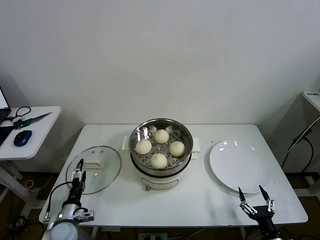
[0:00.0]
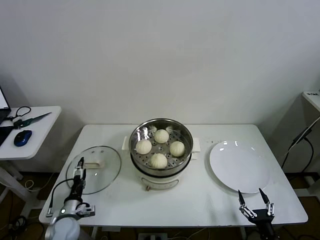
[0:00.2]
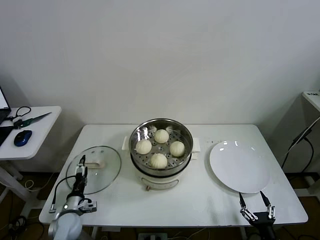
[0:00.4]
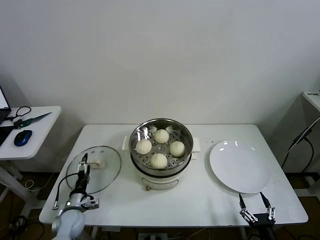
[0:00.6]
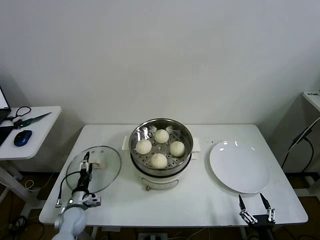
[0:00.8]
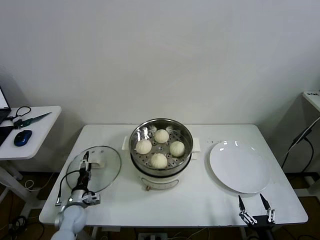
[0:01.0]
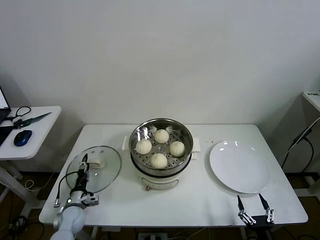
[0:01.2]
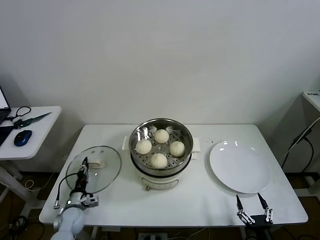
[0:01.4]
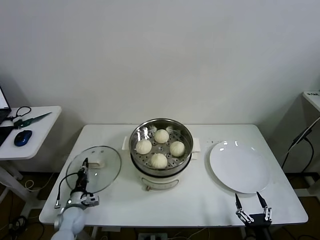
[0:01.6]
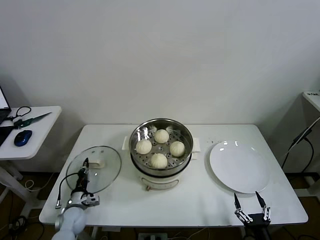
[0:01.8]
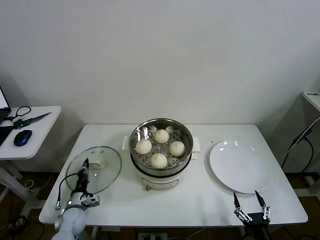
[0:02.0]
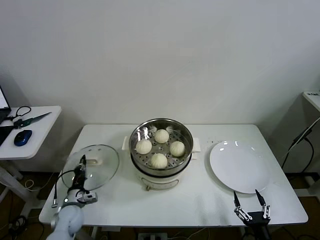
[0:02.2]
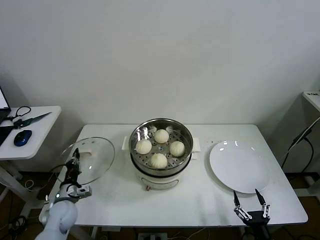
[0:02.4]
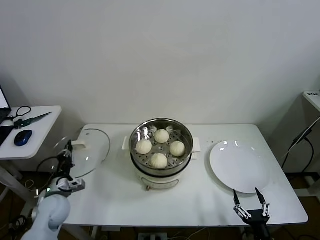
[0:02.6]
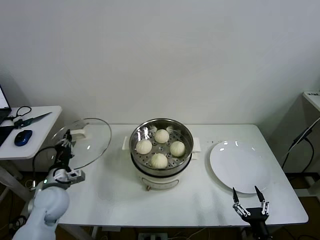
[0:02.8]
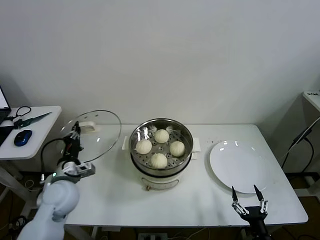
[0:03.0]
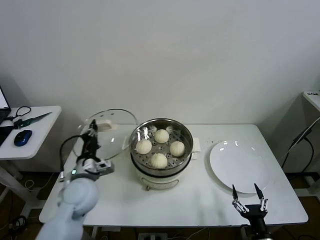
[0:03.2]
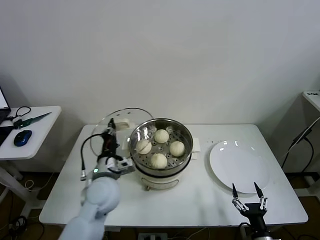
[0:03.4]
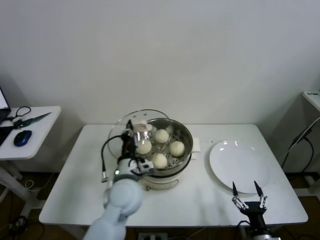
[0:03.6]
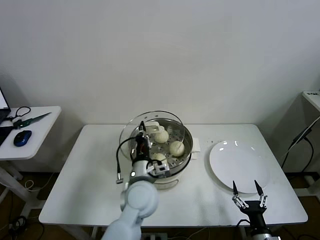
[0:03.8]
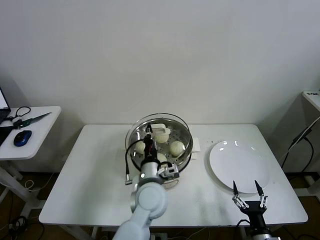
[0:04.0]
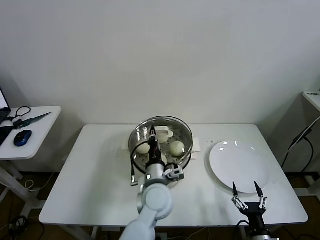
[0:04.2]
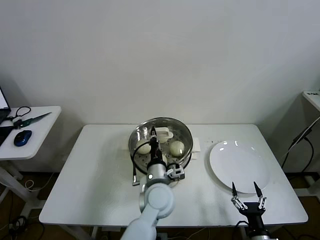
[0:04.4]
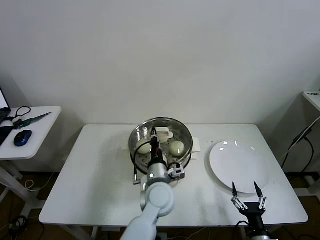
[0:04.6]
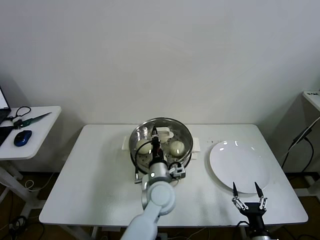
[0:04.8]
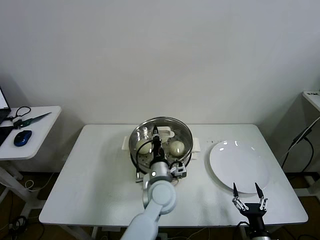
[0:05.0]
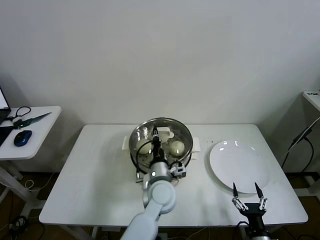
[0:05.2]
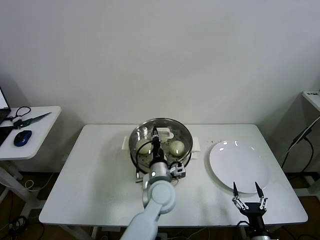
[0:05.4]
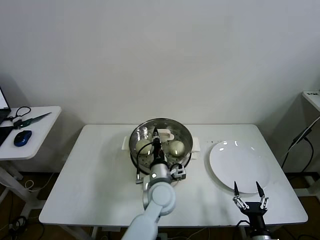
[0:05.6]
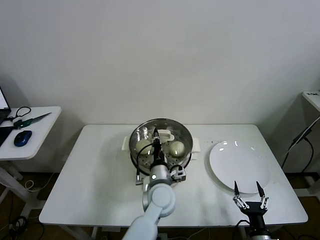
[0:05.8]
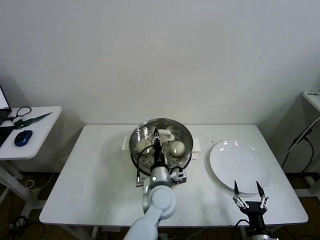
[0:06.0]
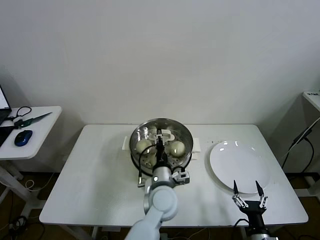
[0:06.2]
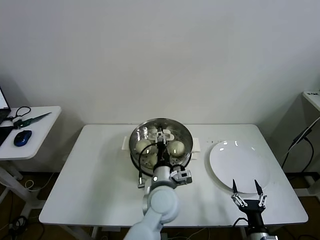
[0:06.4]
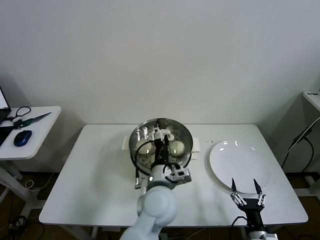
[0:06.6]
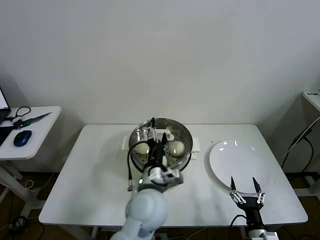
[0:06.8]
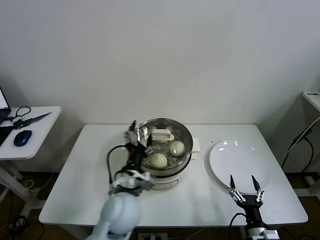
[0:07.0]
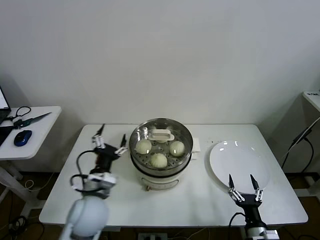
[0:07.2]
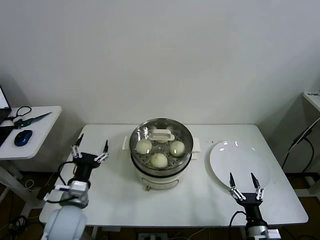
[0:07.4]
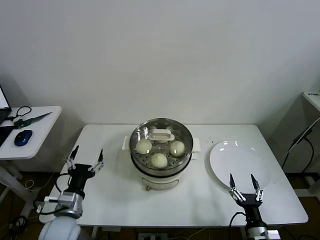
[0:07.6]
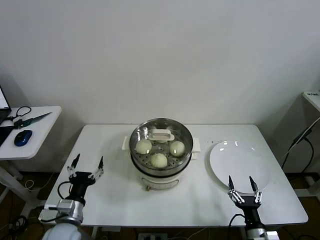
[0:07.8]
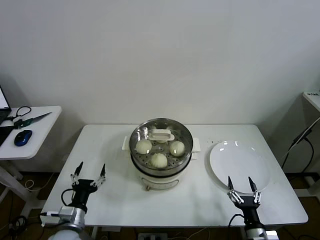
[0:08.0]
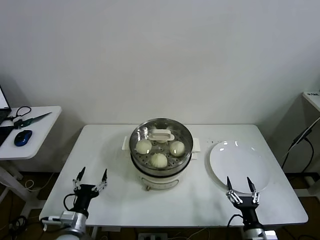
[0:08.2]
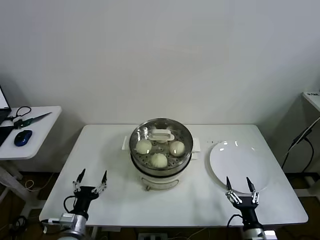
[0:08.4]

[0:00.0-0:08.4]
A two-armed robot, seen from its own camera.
Task of the whole recording: take steamed baozi put them in steamer then cover it.
Step, 0:02.0 to 0:06.2: Place the pot lid on the steamer with left gripper.
0:00.0 to 0:01.4: The left gripper moves forward and downward, approximately 10 cm, and closes.
0:01.4 to 0:02.8: The left gripper shifts about 20 cm upward, and closes.
0:02.8 to 0:04.2: The left gripper is displaced to the right by about 35 cm.
0:04.2 to 0:05.6: The grippers stay close to where they were, moving slightly.
0:05.6 to 0:07.0: The left gripper travels to the left, upward and backward by roughly 10 cm, and opens up.
0:07.0 to 0:08.4: The left gripper heads to the left and downward, covering some 25 cm.
